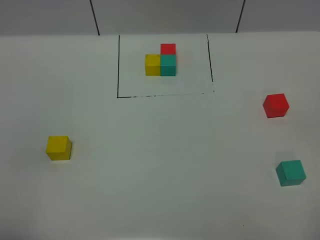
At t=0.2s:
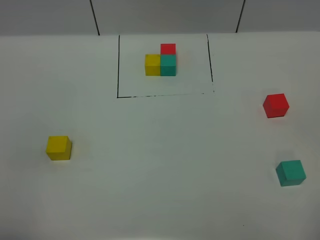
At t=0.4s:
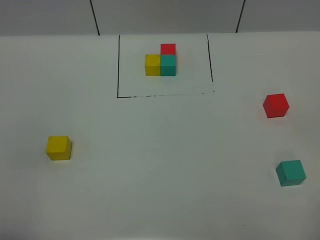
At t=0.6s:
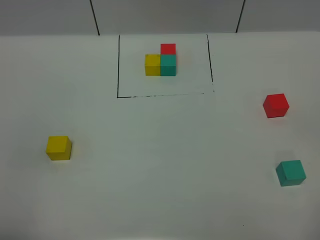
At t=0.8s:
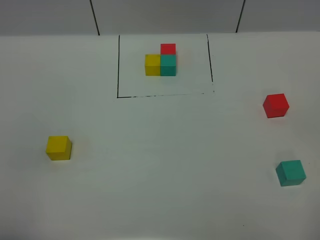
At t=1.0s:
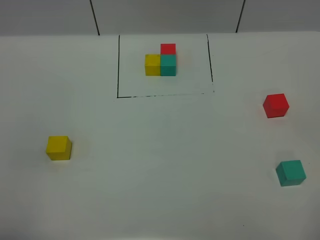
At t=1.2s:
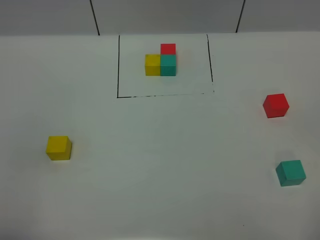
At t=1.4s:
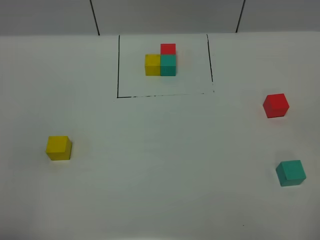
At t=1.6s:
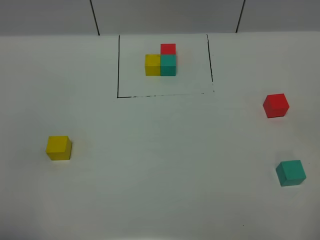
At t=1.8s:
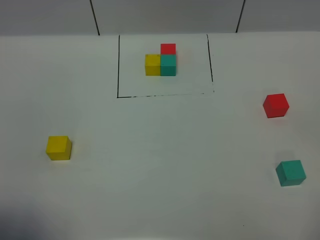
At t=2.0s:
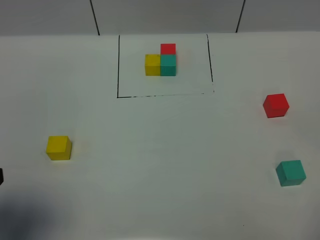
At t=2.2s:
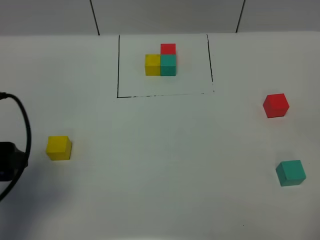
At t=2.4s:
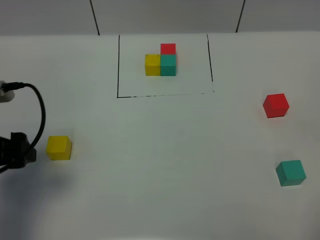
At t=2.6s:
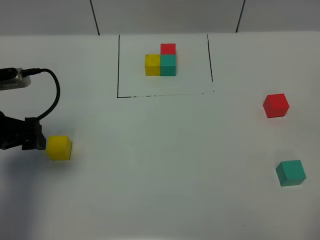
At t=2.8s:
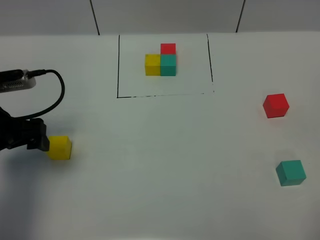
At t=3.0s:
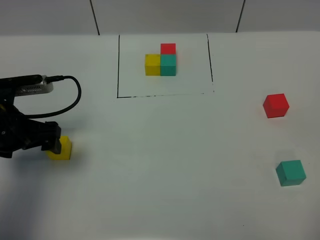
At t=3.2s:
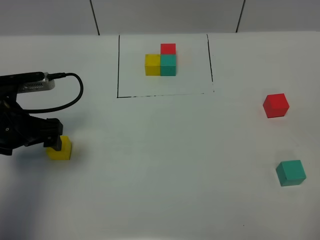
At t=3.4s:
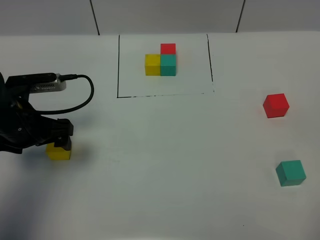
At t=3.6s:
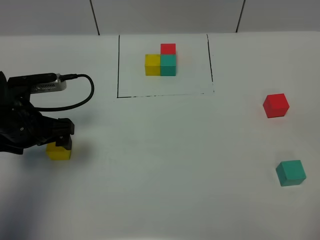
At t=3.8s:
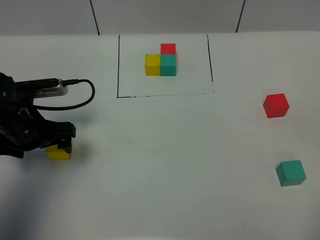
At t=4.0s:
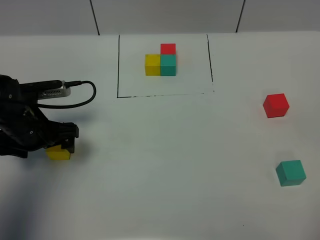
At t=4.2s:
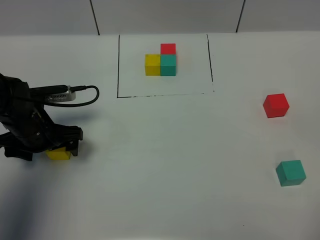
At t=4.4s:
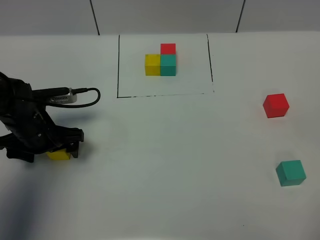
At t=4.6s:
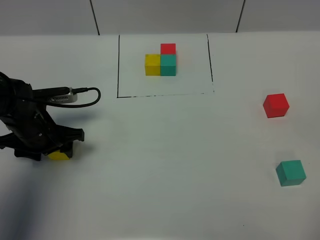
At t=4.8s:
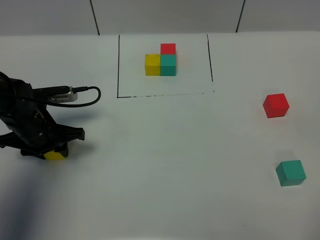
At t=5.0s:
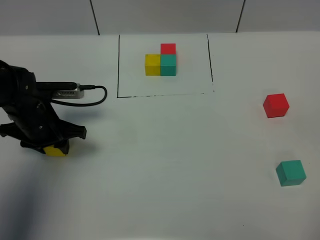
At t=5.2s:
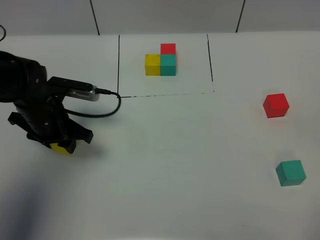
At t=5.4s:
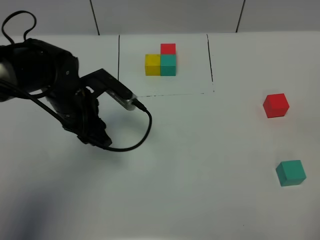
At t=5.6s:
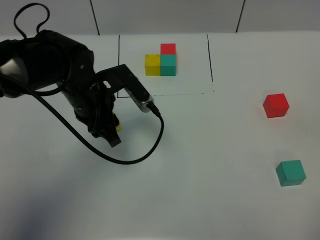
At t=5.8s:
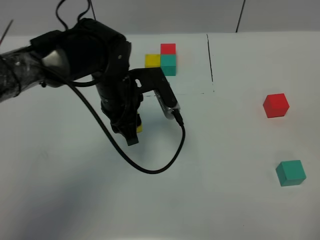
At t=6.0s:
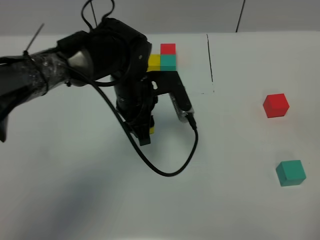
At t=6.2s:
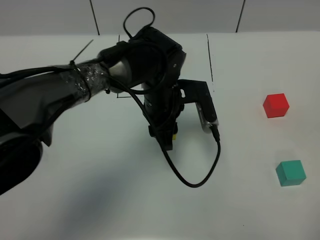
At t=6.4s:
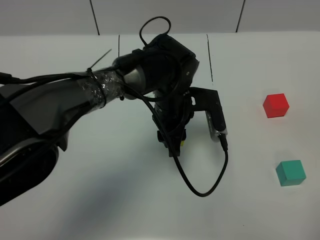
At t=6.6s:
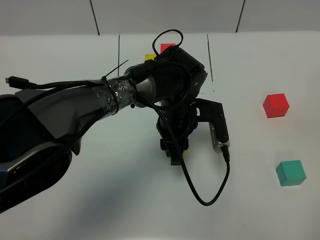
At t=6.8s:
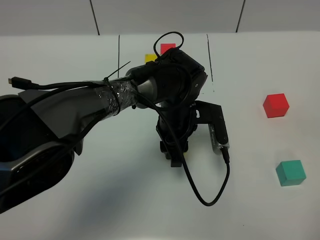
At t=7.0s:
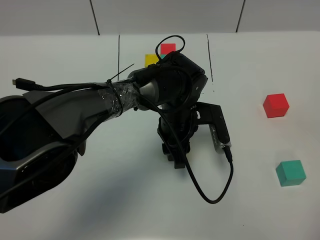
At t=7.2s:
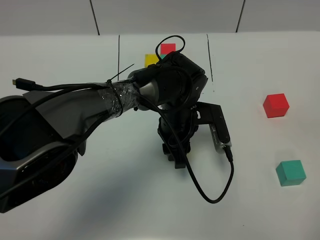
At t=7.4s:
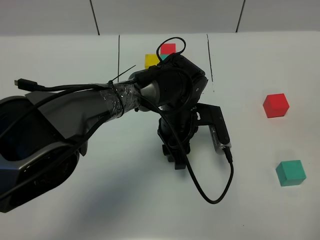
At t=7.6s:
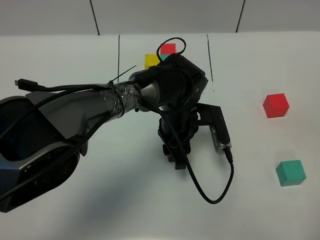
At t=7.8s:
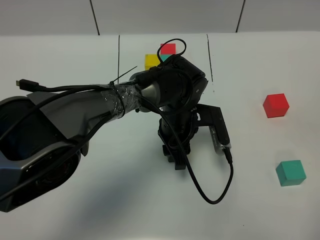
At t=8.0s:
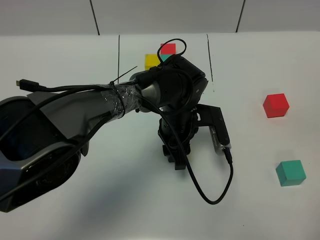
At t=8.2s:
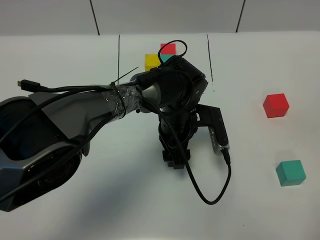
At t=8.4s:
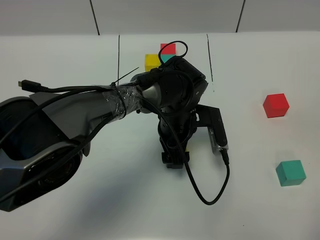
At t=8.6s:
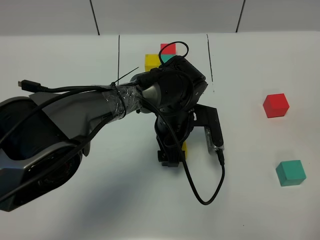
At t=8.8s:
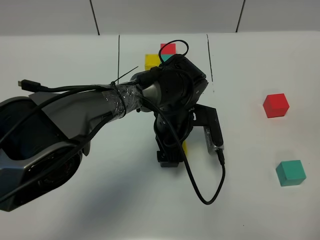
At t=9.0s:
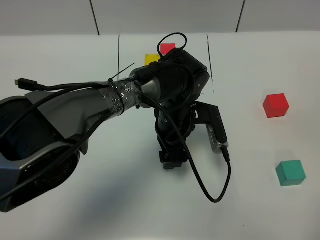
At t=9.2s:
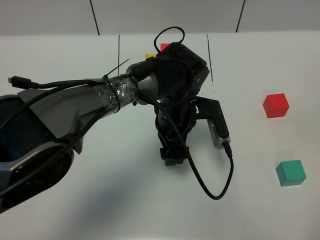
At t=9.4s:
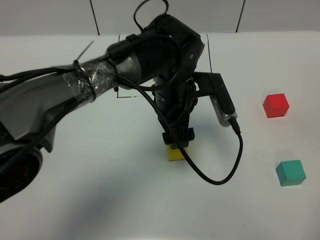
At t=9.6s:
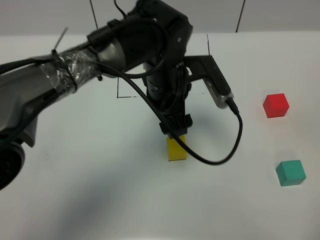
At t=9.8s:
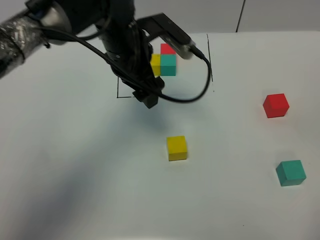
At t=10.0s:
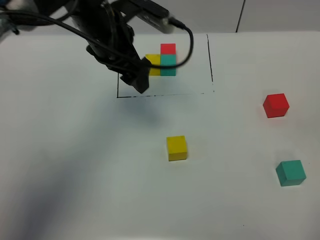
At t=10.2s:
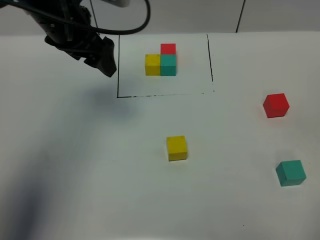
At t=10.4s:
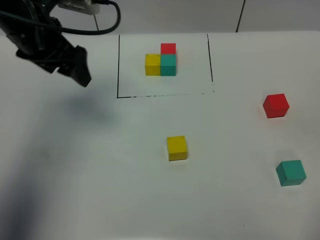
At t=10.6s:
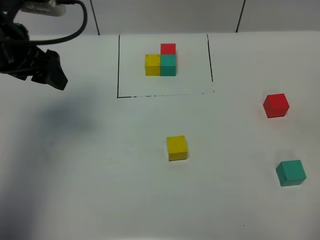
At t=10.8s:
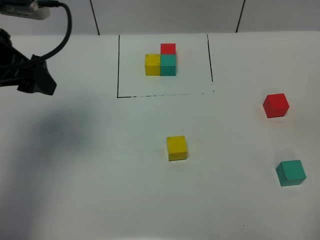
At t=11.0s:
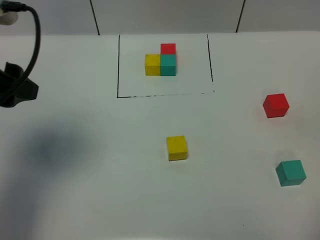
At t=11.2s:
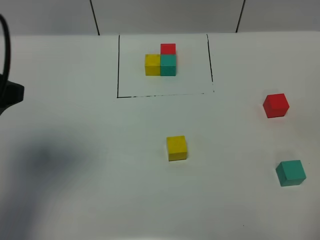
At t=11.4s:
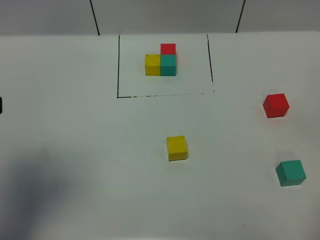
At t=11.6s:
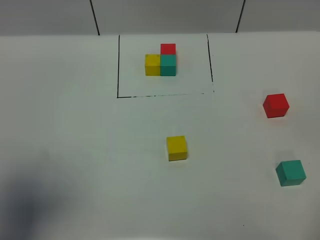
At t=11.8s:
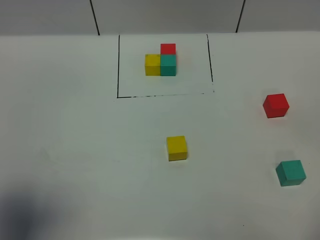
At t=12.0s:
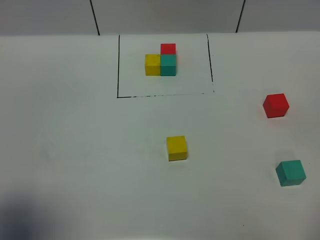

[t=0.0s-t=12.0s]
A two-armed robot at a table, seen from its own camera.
Task of the whole recording: According to the building block template in front, assemble the scattered blocks together.
Step, t=0.0s to t=8.4s: Put the yellow build block in the center of the table.
t=0.0s to t=1.6s: Both grippers stay put.
t=1.6s to t=3.0s: The left gripper shifts roughly 25 cm forward.
t=3.0s to t=4.4s: The left gripper is displaced downward by about 5 cm.
t=4.4s to t=6.0s: The left gripper travels to the right by about 20 cm, and closes.
t=6.0s to t=7.6s: The left gripper shifts approximately 10 cm to the right and downward.
t=7.6s to t=9.0s: The left gripper opens.
t=9.0s to t=10.4s: The left gripper goes about 30 cm to the left and upward.
t=10.4s to t=12.0s: The left gripper goes some 30 cm backward.

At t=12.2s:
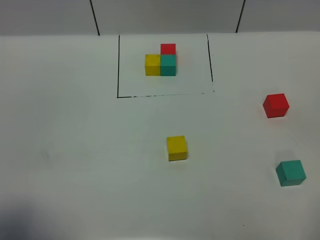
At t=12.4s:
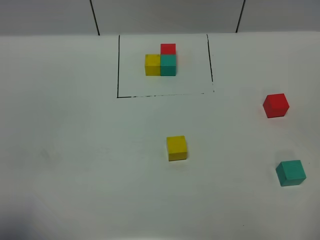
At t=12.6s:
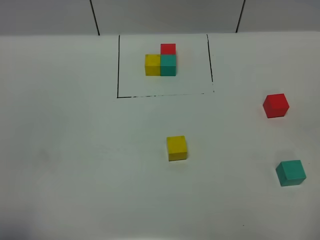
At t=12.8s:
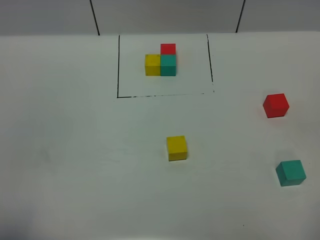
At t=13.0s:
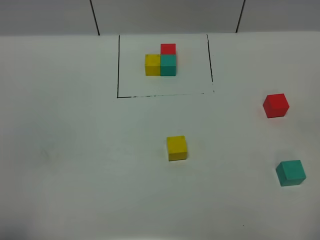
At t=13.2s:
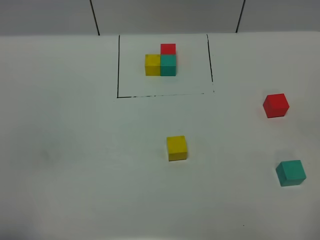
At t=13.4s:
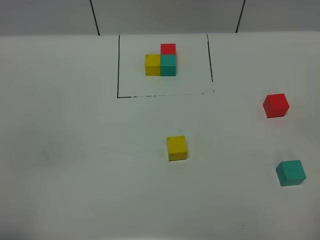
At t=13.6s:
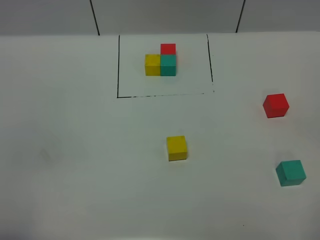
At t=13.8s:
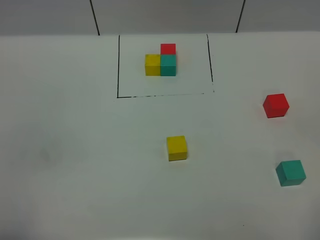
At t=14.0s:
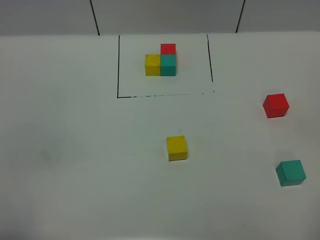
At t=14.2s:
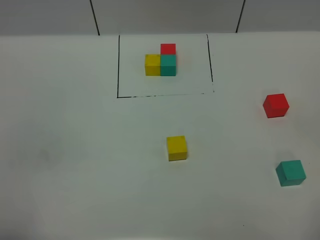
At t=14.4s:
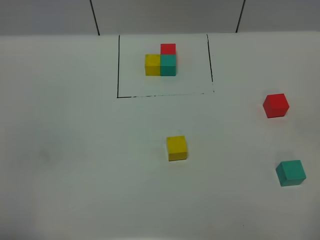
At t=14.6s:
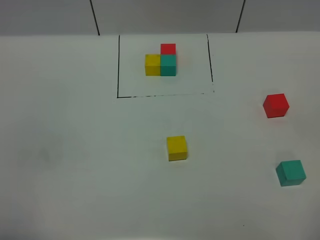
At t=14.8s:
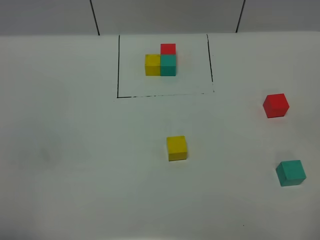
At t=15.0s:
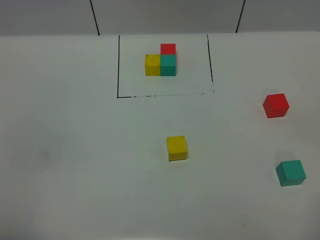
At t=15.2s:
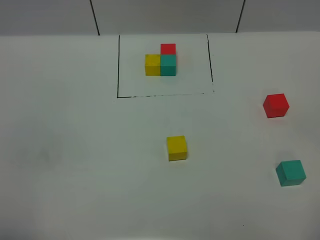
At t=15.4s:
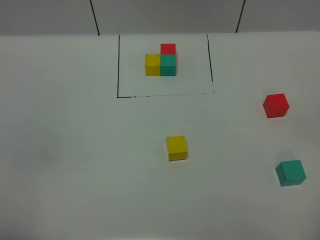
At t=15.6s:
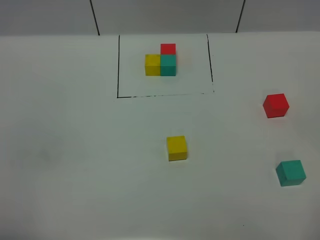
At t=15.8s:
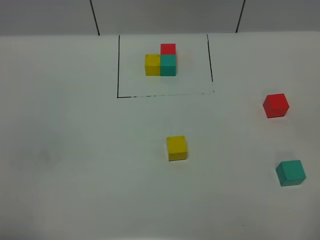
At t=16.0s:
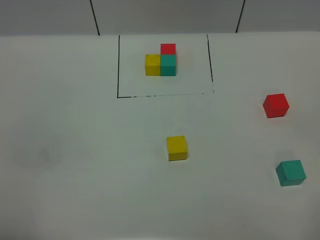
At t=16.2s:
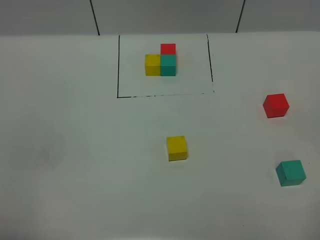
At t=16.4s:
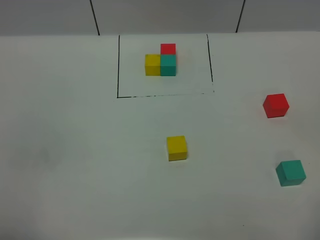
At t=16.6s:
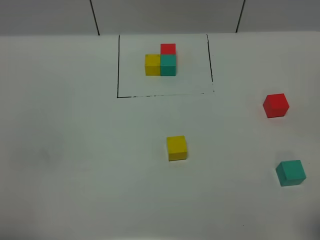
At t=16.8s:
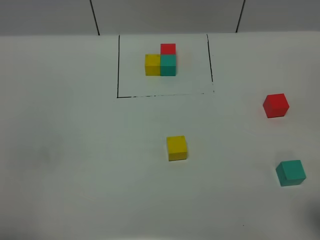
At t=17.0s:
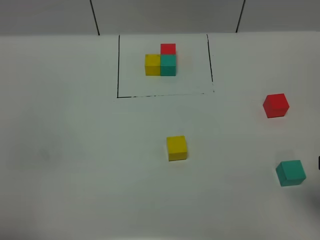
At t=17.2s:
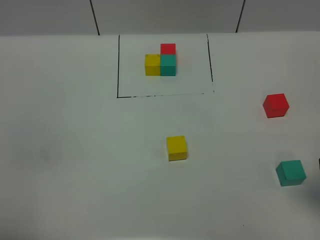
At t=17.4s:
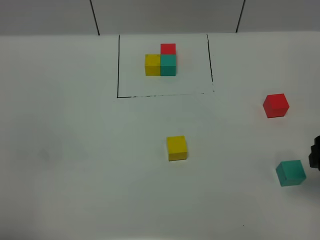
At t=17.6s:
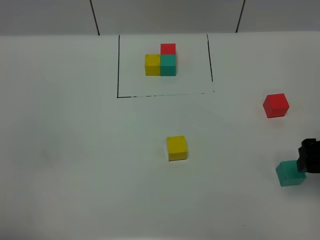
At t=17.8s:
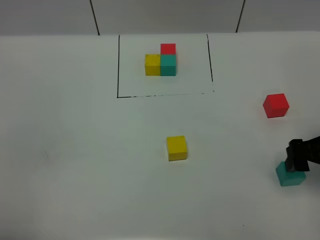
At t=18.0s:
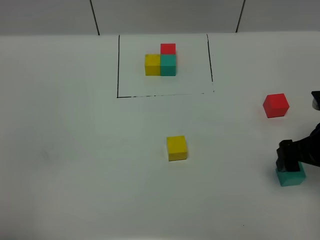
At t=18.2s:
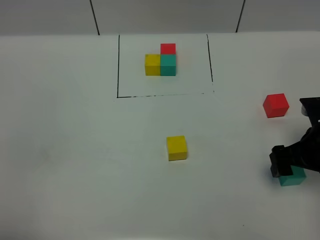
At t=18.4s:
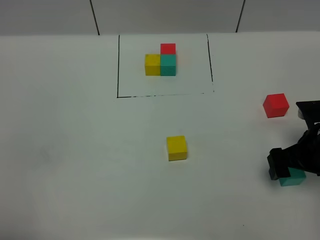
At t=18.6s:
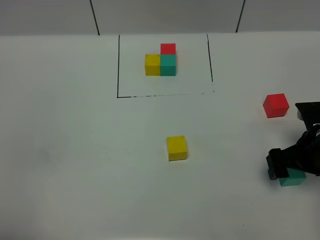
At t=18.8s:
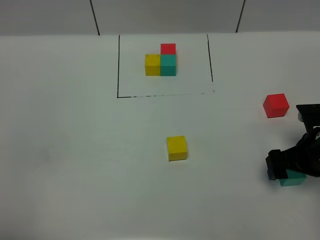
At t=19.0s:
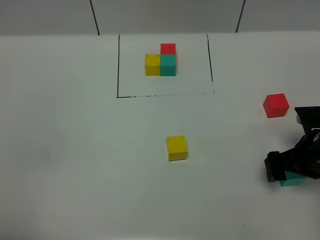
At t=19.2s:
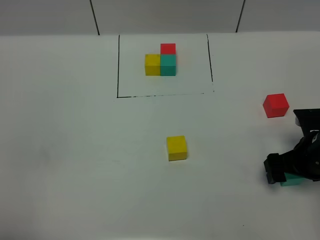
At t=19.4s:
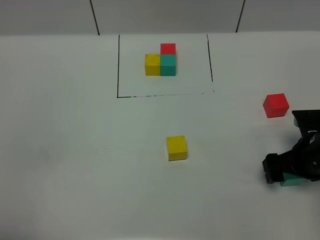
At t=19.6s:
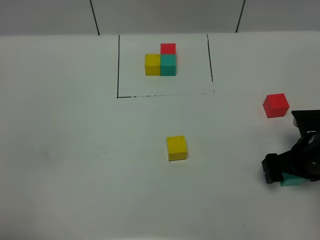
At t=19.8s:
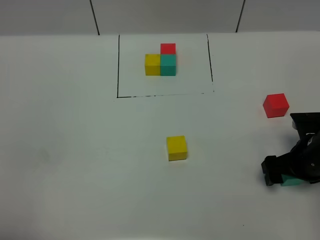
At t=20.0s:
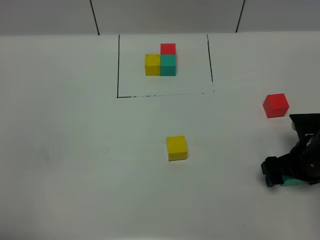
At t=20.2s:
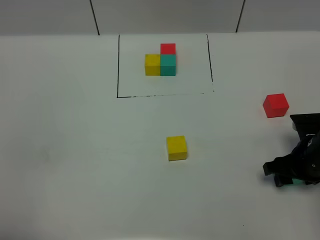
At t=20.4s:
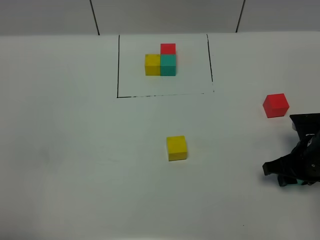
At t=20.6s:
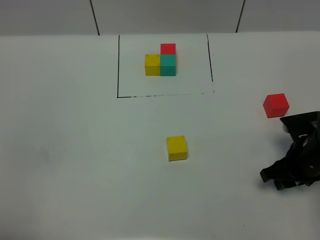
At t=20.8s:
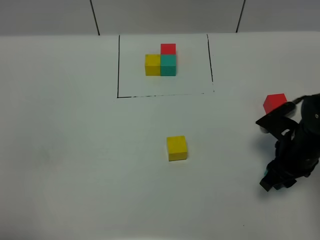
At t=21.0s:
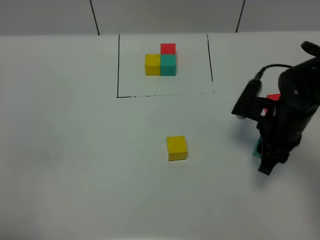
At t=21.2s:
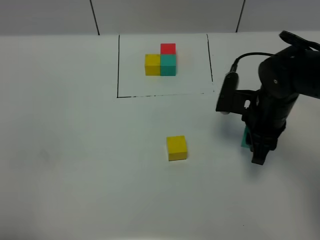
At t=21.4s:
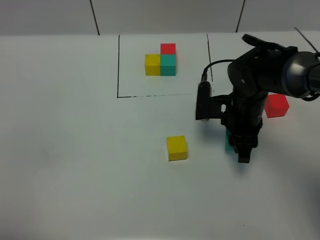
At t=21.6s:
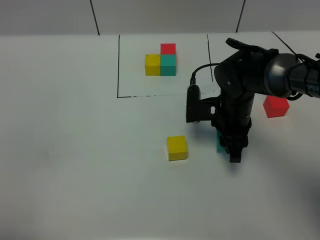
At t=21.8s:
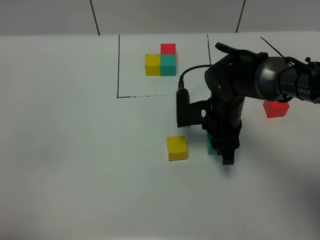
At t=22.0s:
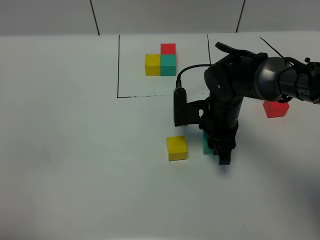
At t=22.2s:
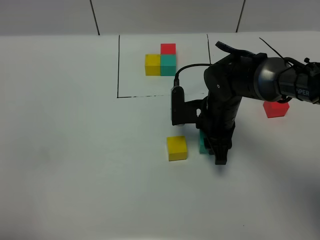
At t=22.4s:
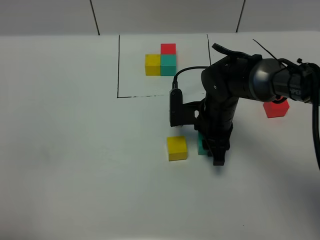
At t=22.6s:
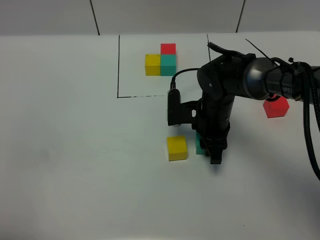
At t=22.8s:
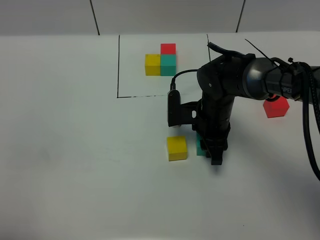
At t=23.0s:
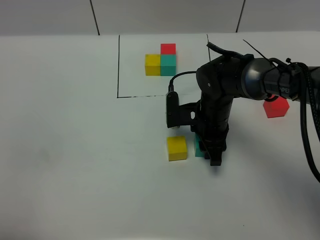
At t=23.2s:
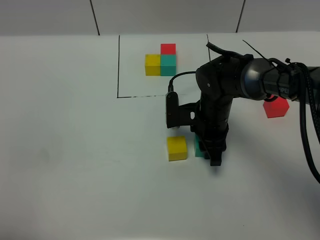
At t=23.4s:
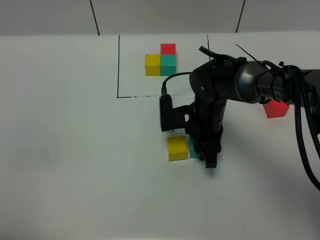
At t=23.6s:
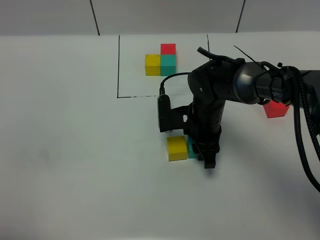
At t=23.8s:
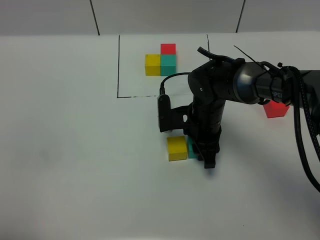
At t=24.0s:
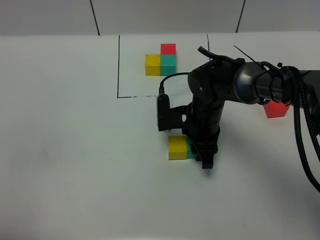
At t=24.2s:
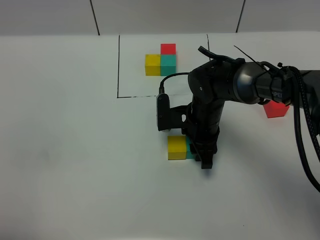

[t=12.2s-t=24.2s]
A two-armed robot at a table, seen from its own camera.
Task of the whole recording: According to the building block template in front, assemble the scattered blocks together.
t=12.2s to t=13.8s: The left gripper shifts by about 5 cm.
t=16.6s to t=18.2s: The right gripper travels forward and downward by approximately 20 cm.
t=18.2s to t=19.8s: There are only small adjustments of the grippers.
t=19.8s to t=21.2s: The right gripper is displaced to the left, forward and upward by about 10 cm, and closes its fingers.
t=21.2s to t=22.6s: The right gripper travels to the left and downward by roughly 10 cm.
t=22.6s to t=24.2s: The grippers move only a little.
